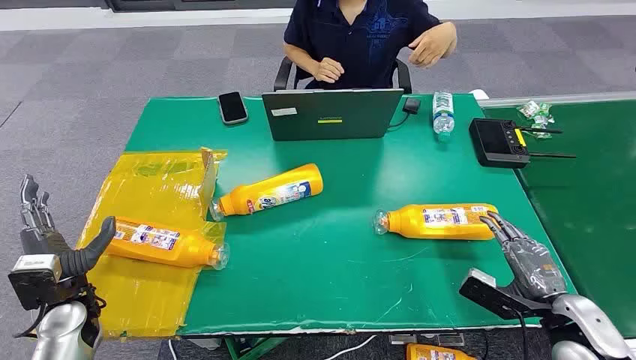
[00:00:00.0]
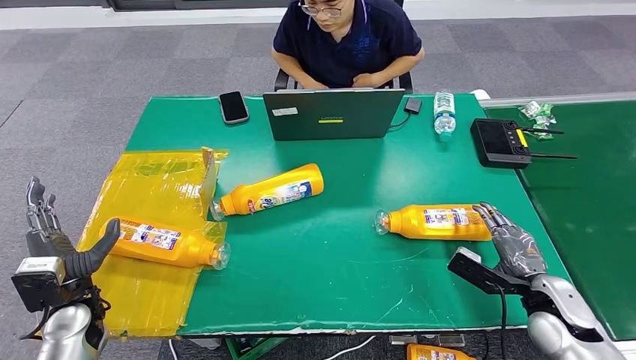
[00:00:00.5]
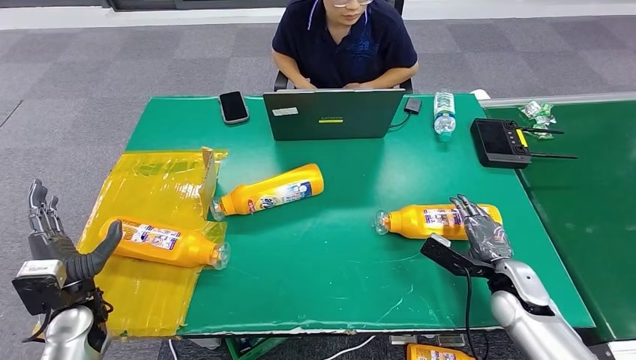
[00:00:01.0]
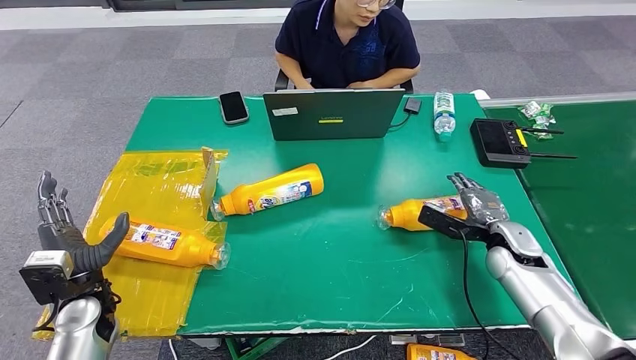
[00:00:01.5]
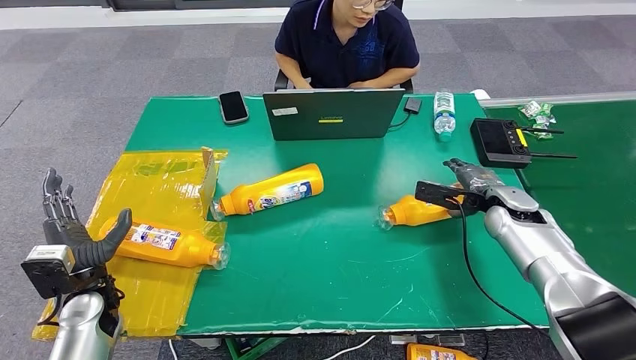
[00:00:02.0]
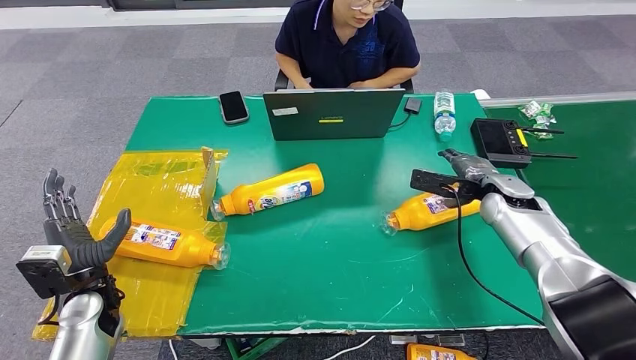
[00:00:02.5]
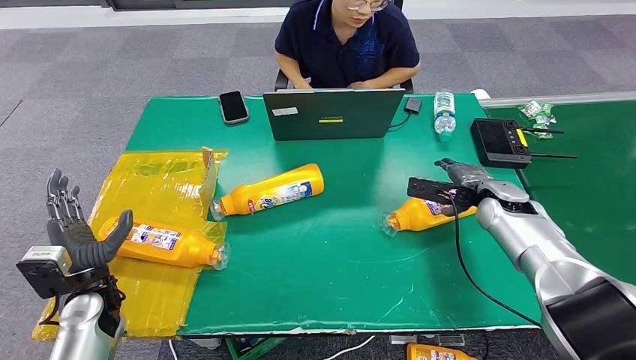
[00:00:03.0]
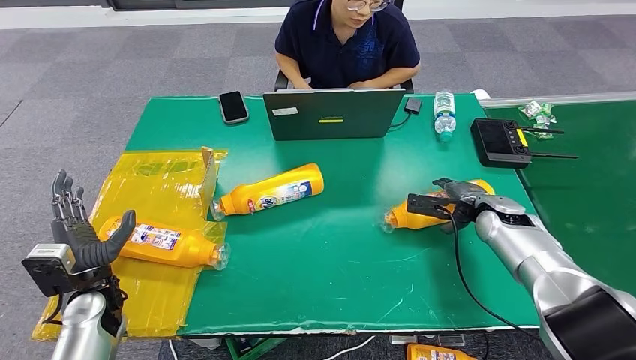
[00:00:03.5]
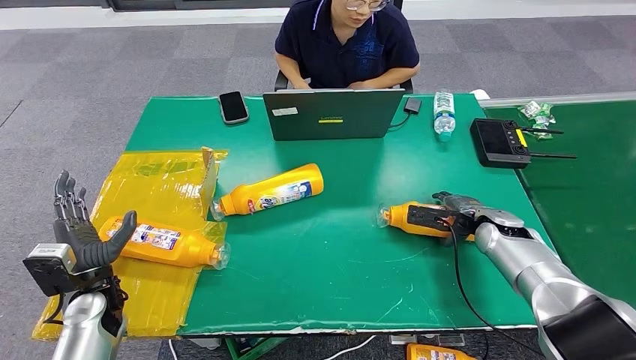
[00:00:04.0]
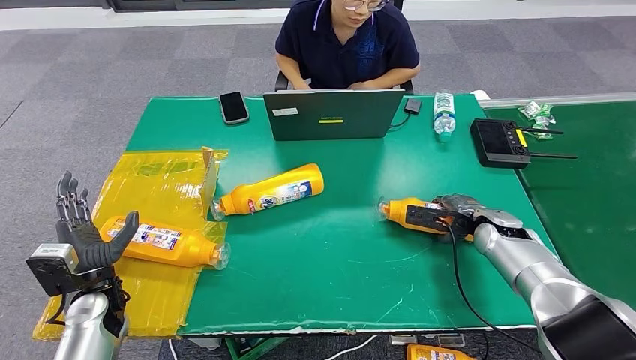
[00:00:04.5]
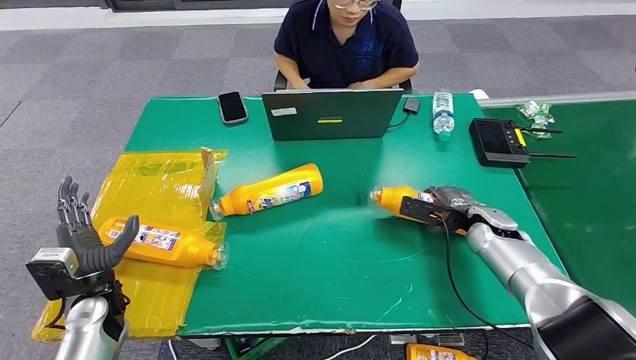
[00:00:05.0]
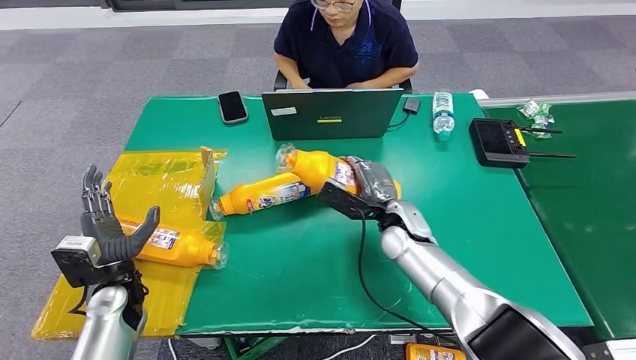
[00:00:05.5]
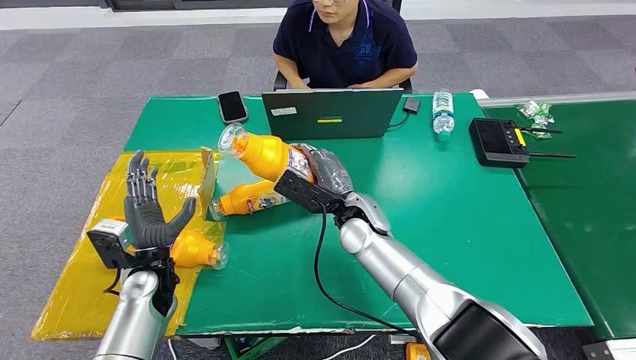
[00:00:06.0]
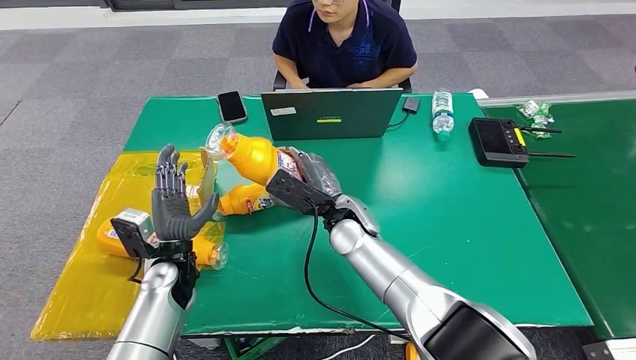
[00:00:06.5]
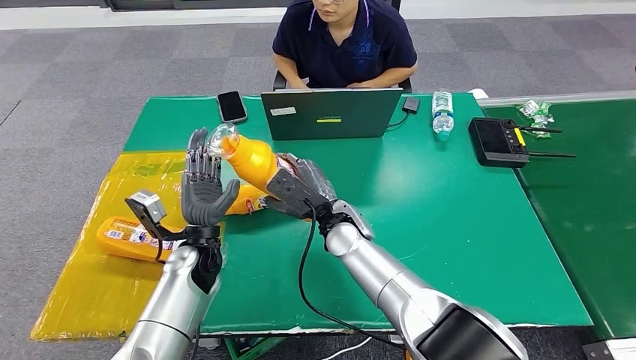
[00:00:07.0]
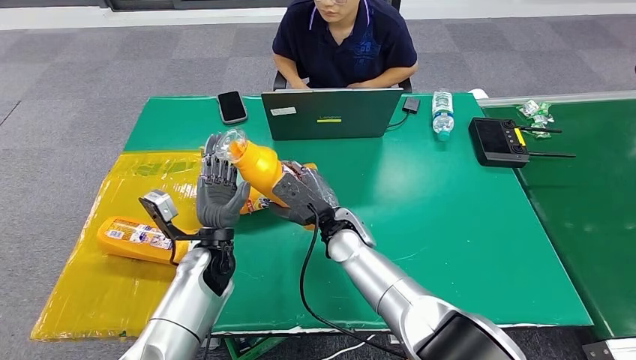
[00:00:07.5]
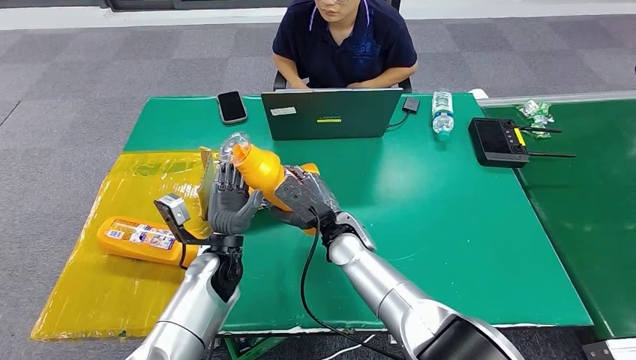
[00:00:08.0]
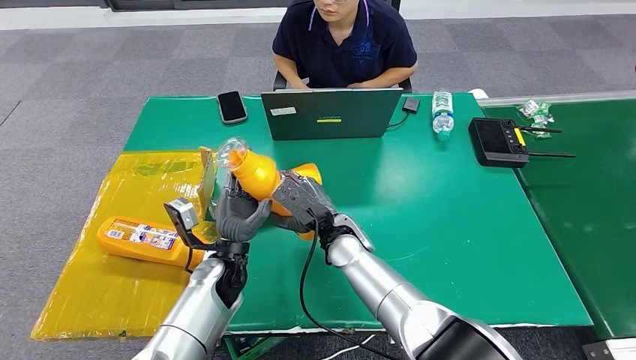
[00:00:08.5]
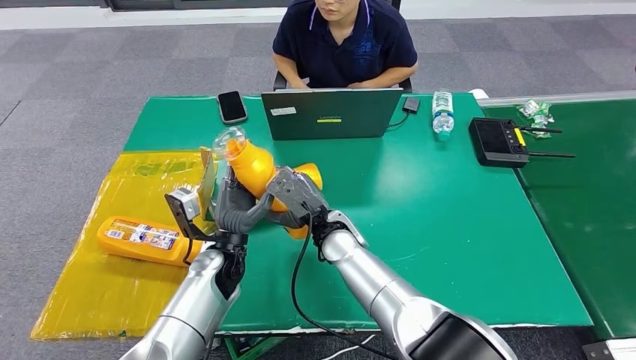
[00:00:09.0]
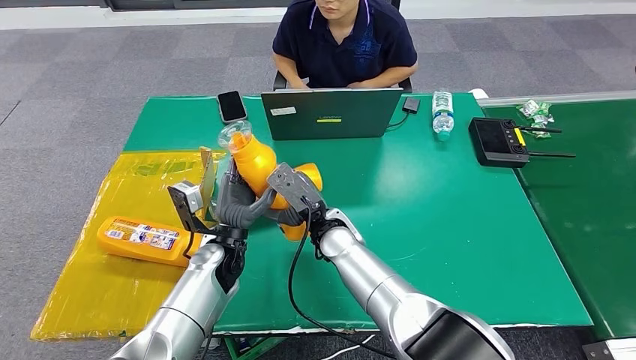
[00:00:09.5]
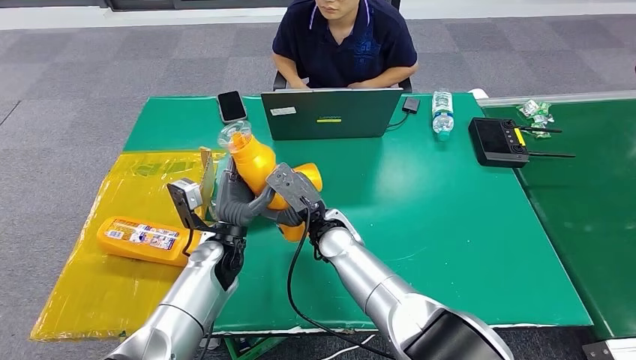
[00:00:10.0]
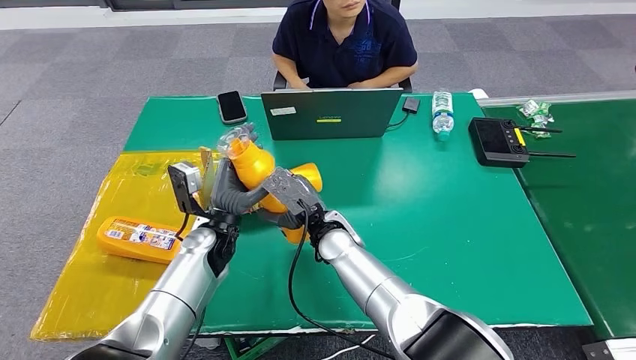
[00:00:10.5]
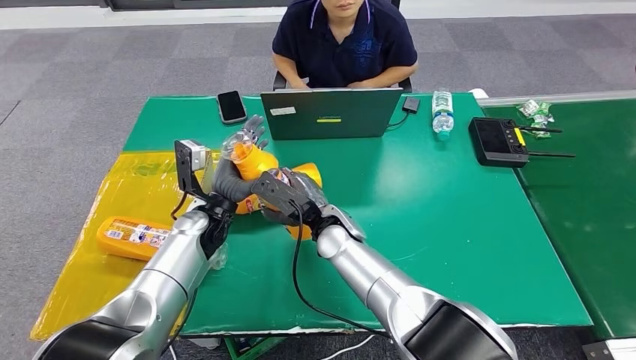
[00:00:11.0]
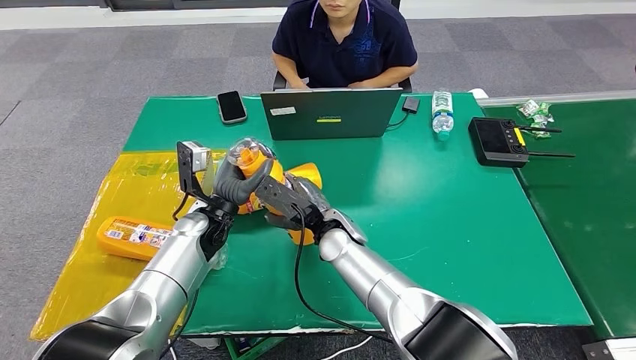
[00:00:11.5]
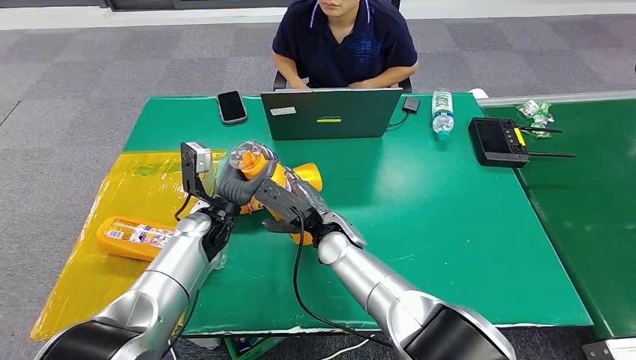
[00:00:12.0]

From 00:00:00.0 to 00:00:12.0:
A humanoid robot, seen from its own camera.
Step, from 00:00:00.0 to 00:00:05.0: Pick up the bottle from the table.
From 00:00:02.0 to 00:00:04.0: The right hand ends up some 5 cm from where it was.
From 00:00:06.0 to 00:00:08.0: The right hand changes place by about 5 cm, while the left hand travels to the right by some 10 cm.
From 00:00:08.0 to 00:00:10.0: The hands move only a little.
From 00:00:10.0 to 00:00:12.0: The left hand changes place by about 5 cm.

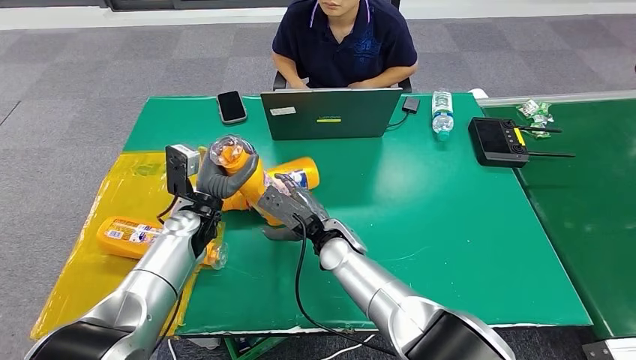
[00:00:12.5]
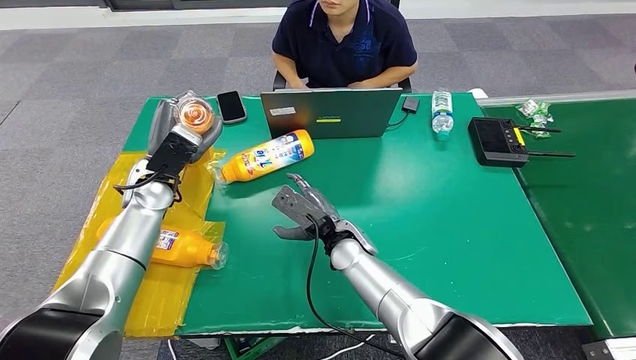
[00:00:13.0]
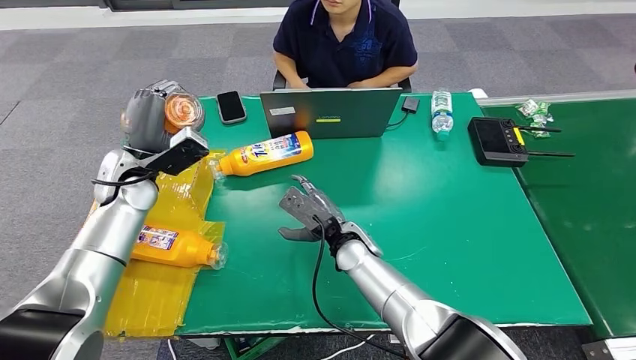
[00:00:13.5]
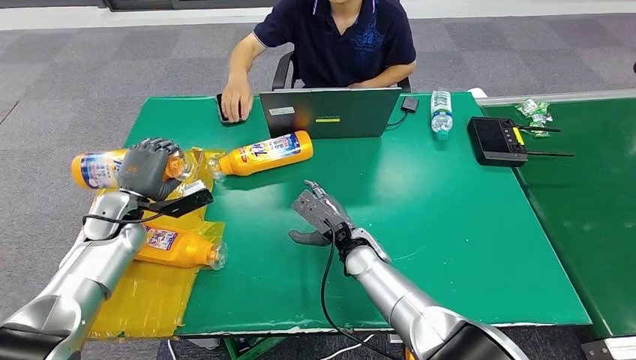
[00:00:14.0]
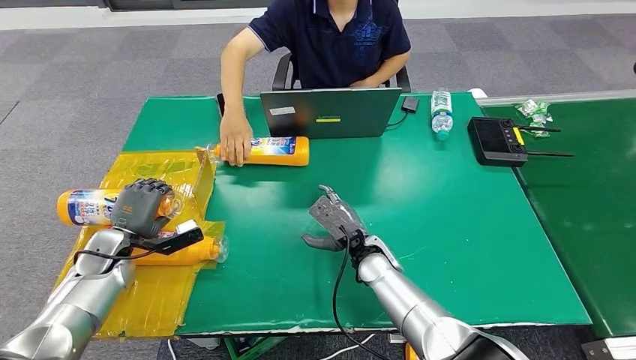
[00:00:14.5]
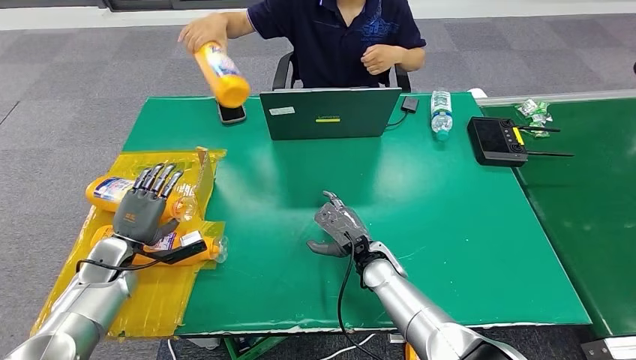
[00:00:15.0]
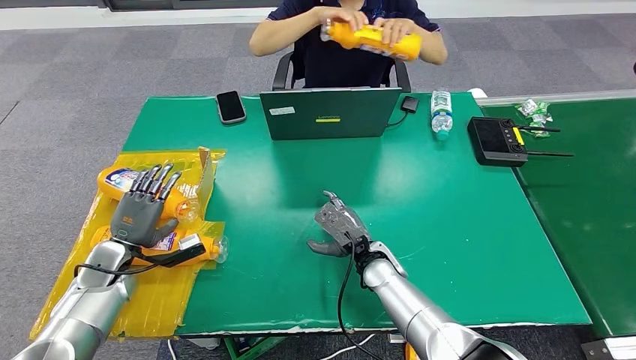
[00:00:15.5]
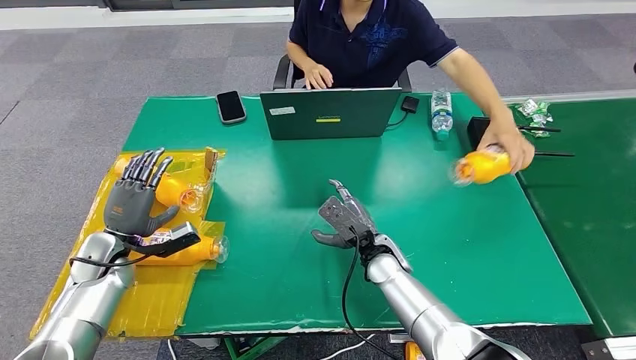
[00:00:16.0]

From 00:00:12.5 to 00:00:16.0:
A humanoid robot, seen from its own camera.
Step, from 00:00:12.5 to 00:00:16.0: Turn the bottle to the front side.
From 00:00:14.5 to 00:00:16.0: The hands stay close to where they were, moving slightly.
